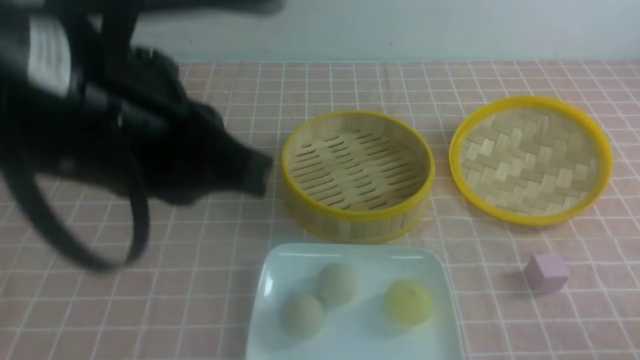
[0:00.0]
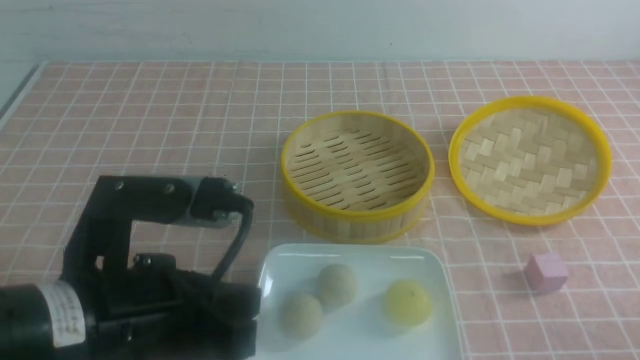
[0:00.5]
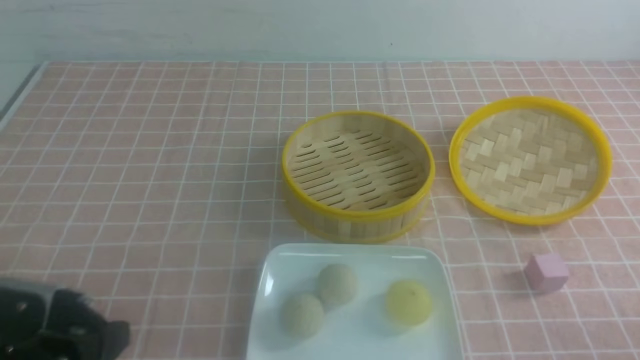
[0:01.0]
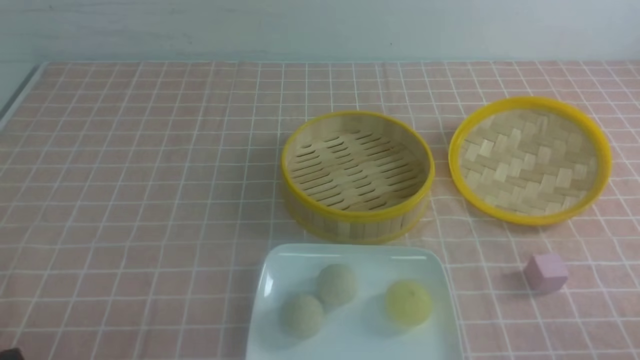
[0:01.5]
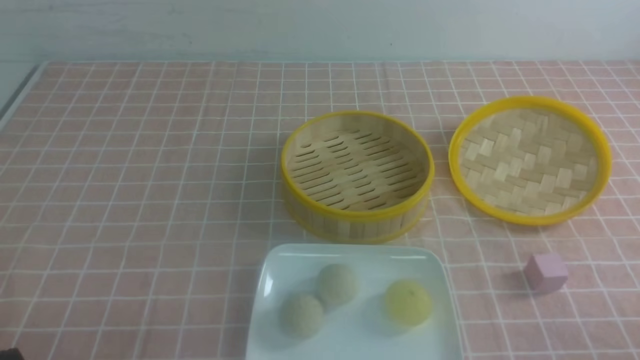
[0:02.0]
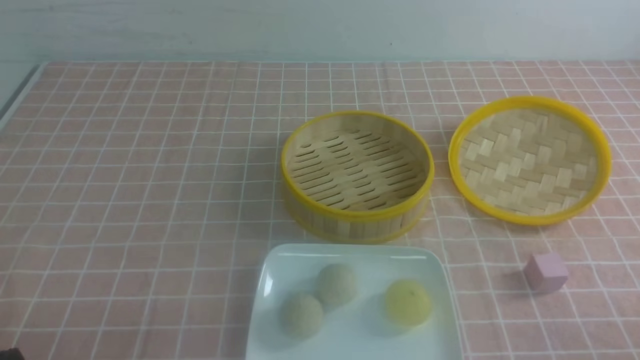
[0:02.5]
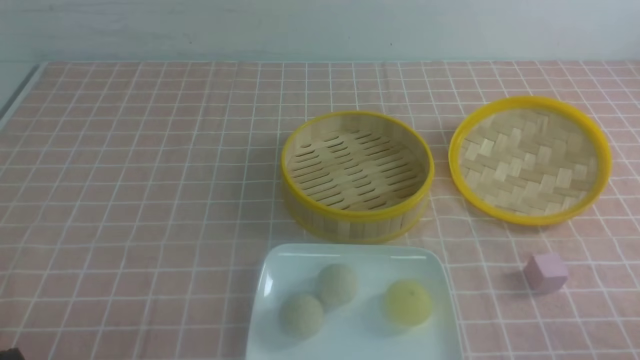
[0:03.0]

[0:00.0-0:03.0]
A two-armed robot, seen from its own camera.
0:00.0 to 0:01.5: The left gripper is displaced downward, to the left and backward by some 30 cm.
0:01.5 to 0:03.0: Neither gripper changes place.

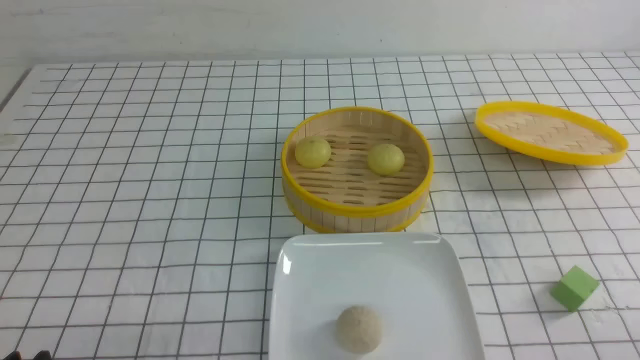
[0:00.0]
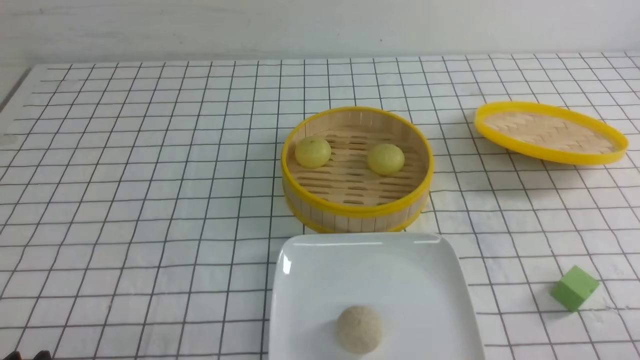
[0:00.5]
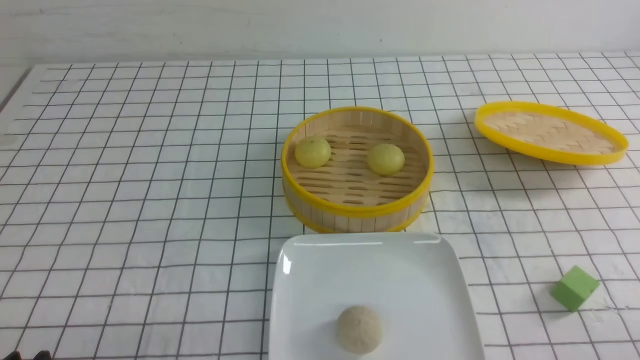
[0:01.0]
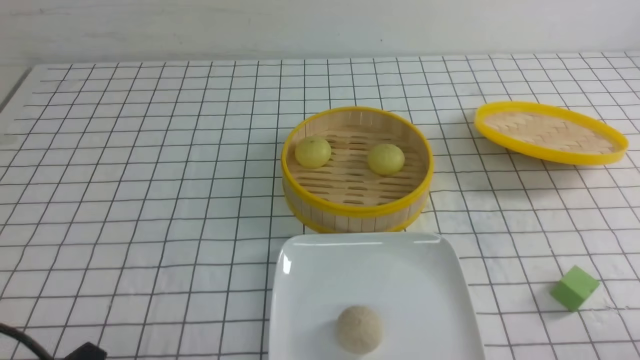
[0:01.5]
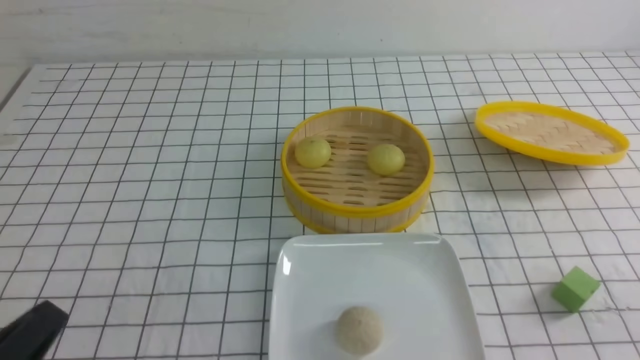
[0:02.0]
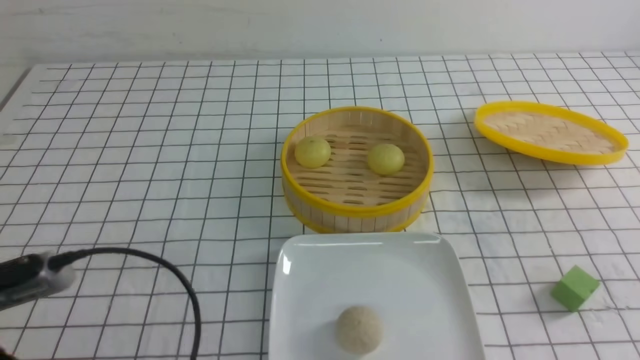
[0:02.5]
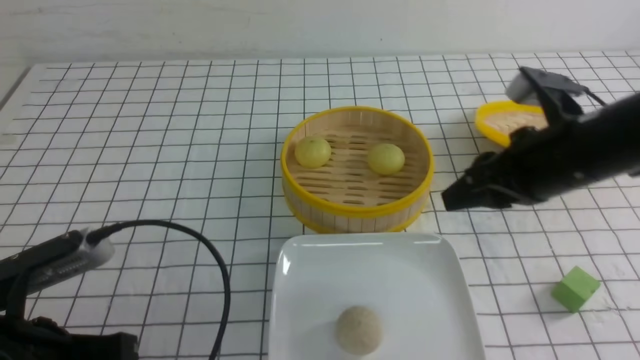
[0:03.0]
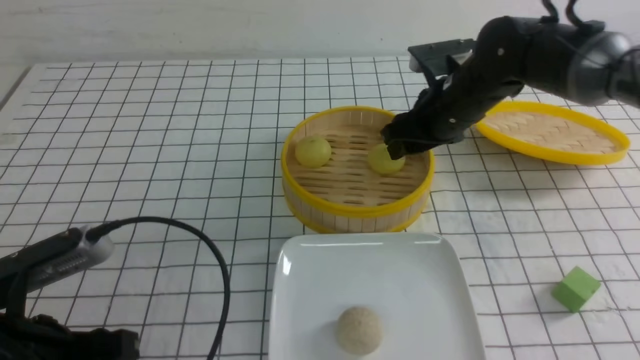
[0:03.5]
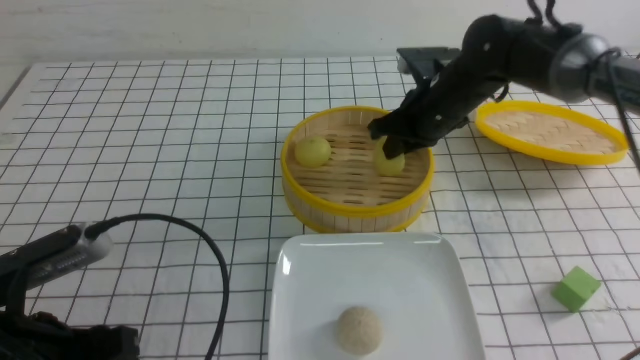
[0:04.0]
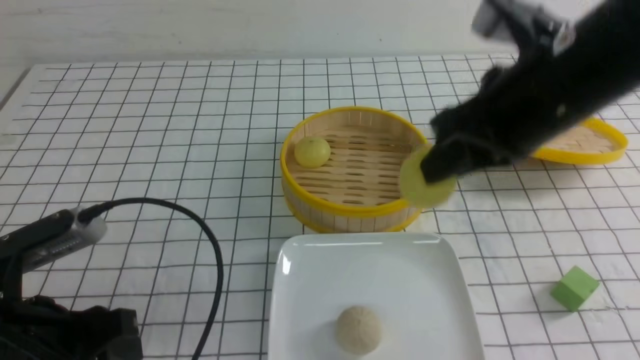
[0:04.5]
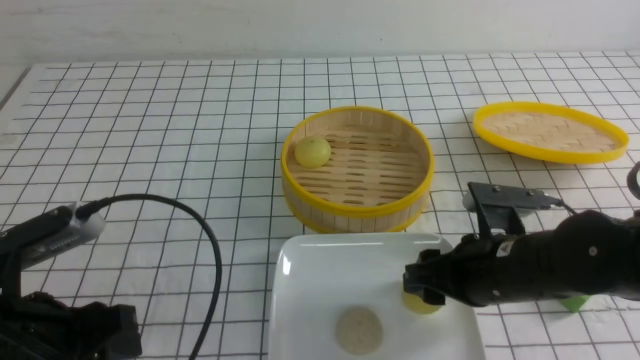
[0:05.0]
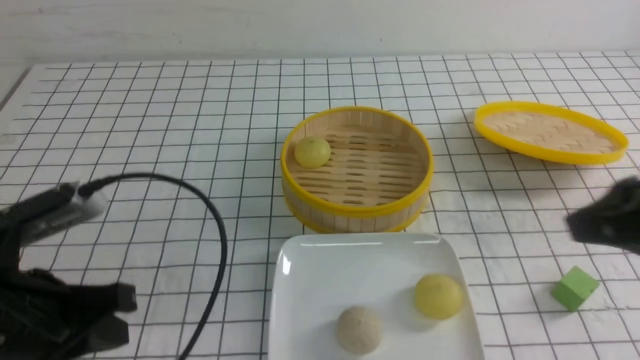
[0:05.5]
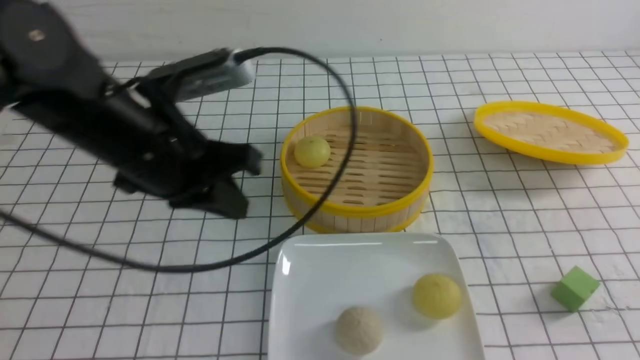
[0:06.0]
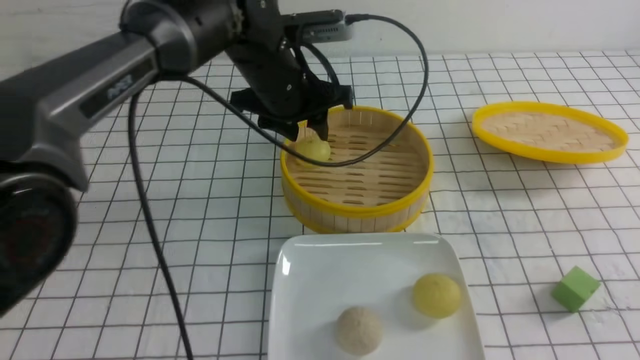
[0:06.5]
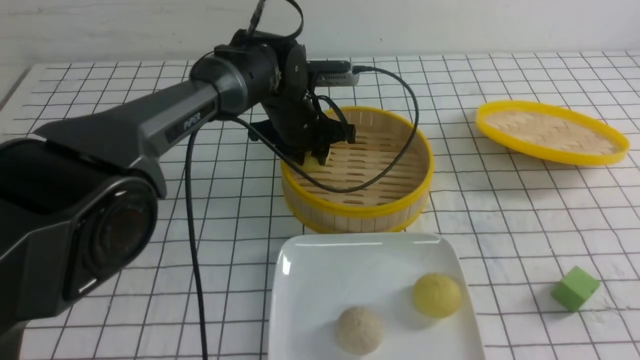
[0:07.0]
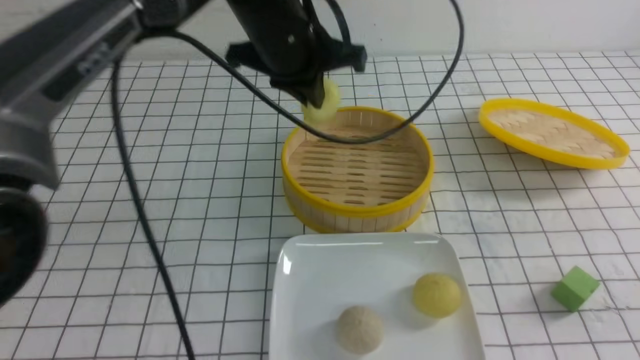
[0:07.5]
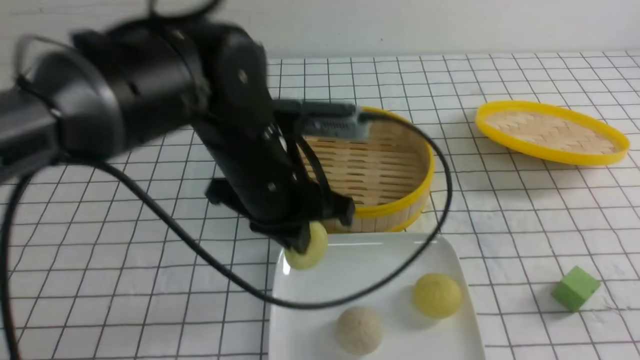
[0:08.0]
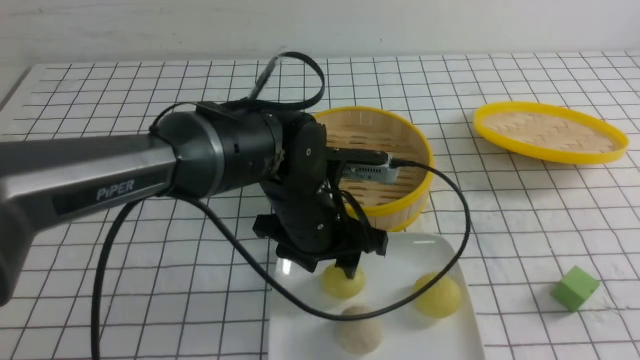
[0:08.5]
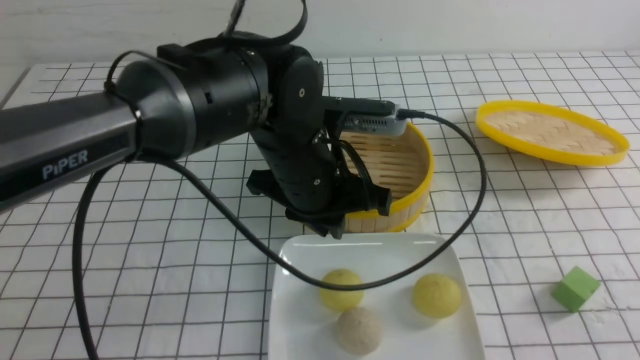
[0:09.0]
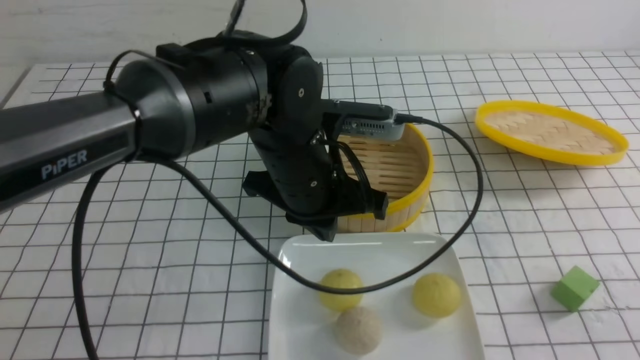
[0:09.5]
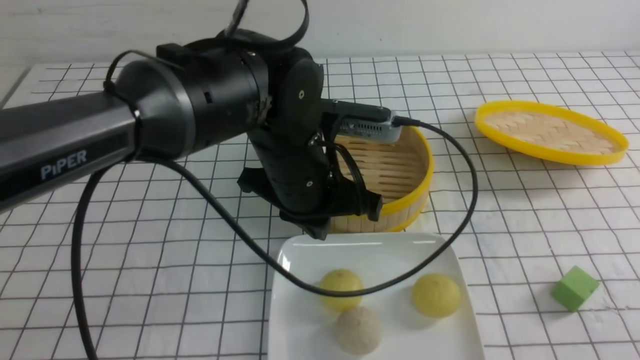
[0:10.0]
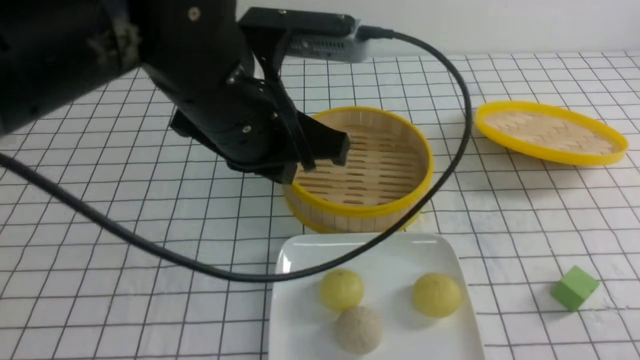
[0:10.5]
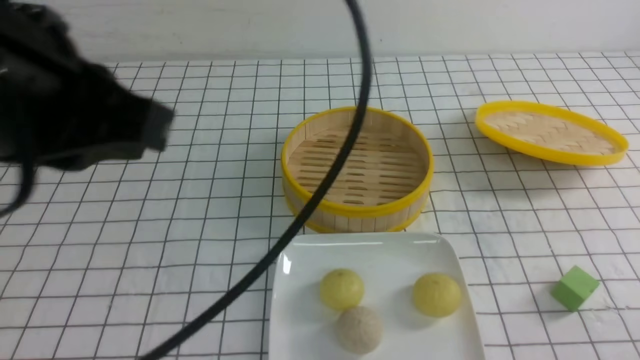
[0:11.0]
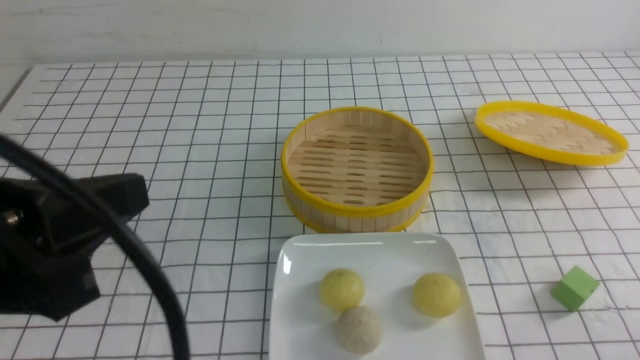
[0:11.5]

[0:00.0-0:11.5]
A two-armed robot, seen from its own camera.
Step, 0:00.0 to 0:03.5: use the right arm to grab the steamed stuffed bun that is closest to it.
Step, 0:04.0 to 0:05.0: use the right arm to put the steamed stuffed bun into the plate.
Step, 0:05.5 to 0:07.0: use the left arm to grab the steamed stuffed bun that is closest to it.
Step, 0:07.5 to 0:08.0: use the left arm to put the steamed stuffed bun into the plate.
0:00.0 to 0:02.0: The left gripper heads upward, covering roughly 5 cm, and closes its fingers.
0:02.0 to 0:04.0: The right gripper shifts about 40 cm forward and to the left, and opens, then closes again. Meanwhile the left gripper goes roughly 10 cm forward, and opens its fingers.
0:04.0 to 0:06.0: The right gripper moves backward and to the right, about 35 cm, and opens, then closes once more, while the left gripper is displaced forward, to the right and upward by approximately 20 cm, and closes up.
0:06.0 to 0:07.5: The left gripper goes roughly 15 cm to the right and forward, and opens, then closes again.
0:07.5 to 0:09.5: The left gripper heads backward and downward, covering approximately 10 cm, and opens and closes again. The right gripper goes some 5 cm backward.
0:09.5 to 0:11.5: The right gripper is displaced downward by about 10 cm. The left gripper shifts some 30 cm backward, to the left and upward.

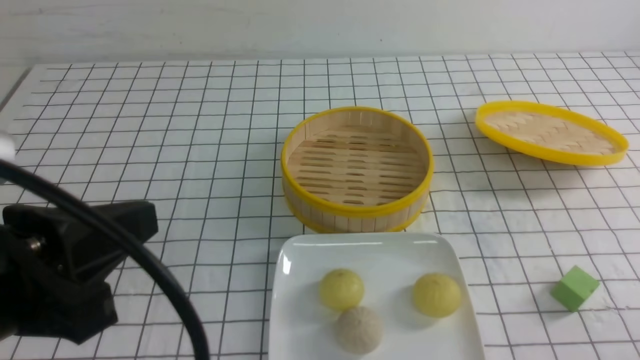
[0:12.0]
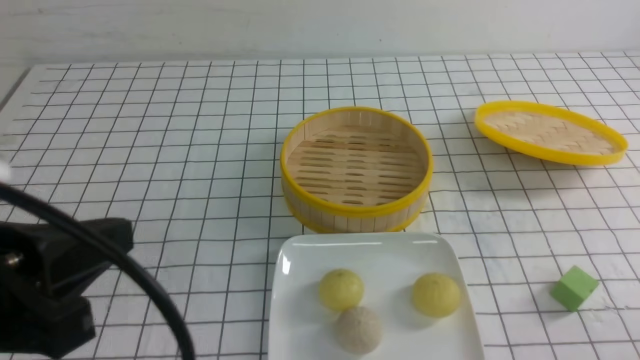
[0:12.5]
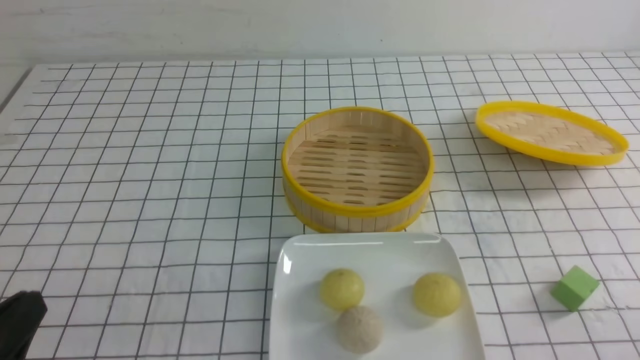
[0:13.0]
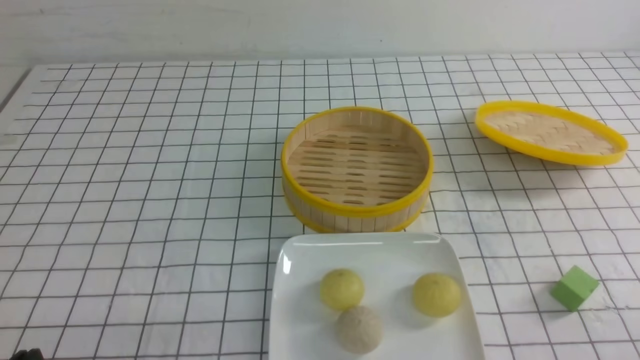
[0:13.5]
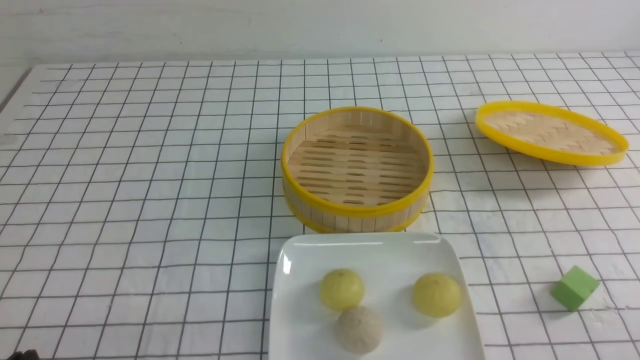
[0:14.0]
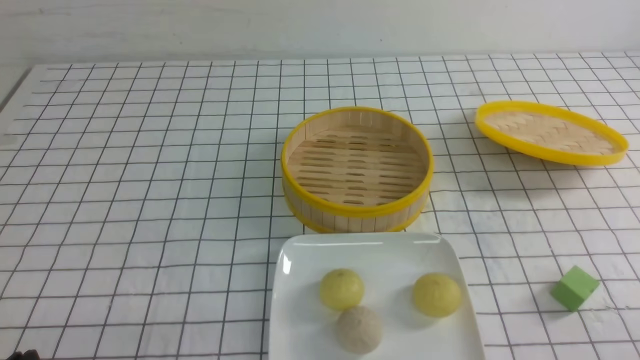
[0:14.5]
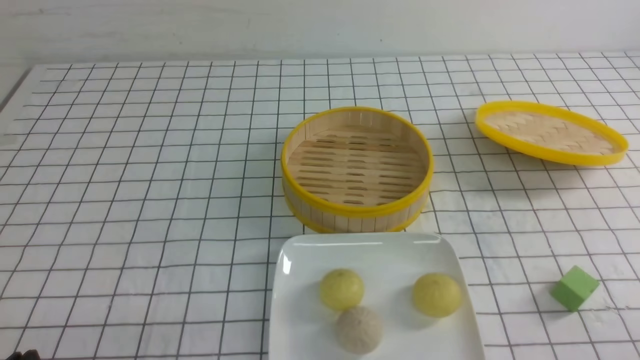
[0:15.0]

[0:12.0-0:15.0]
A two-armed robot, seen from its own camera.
0:12.0 to 0:13.5: The left gripper moves downward, about 20 cm.
0:13.5 to 0:15.0: Neither gripper changes place.
